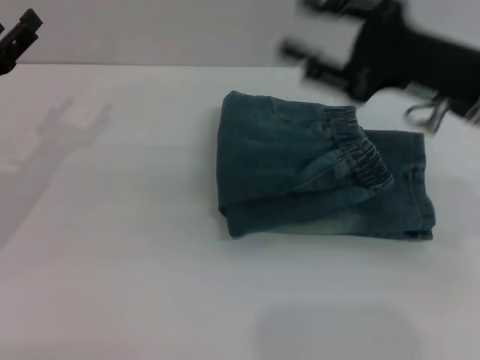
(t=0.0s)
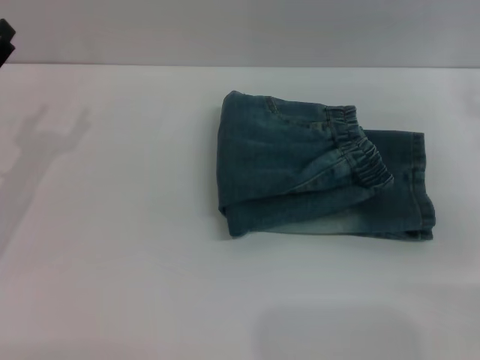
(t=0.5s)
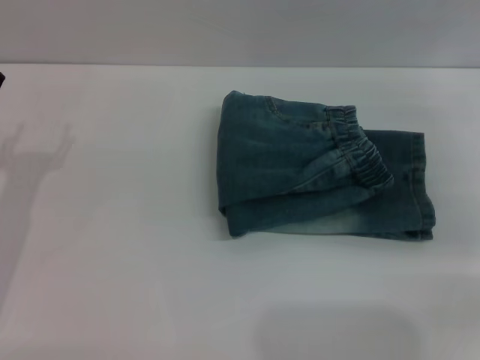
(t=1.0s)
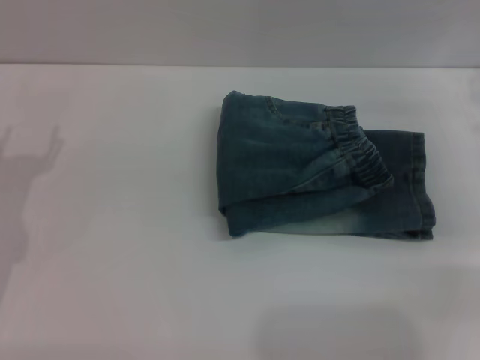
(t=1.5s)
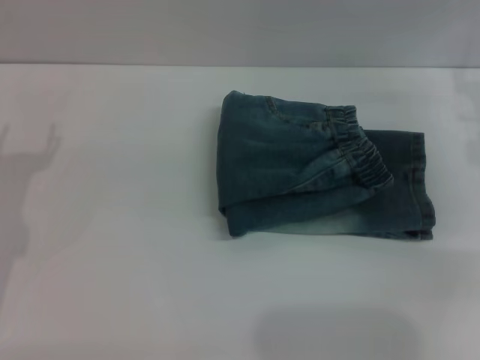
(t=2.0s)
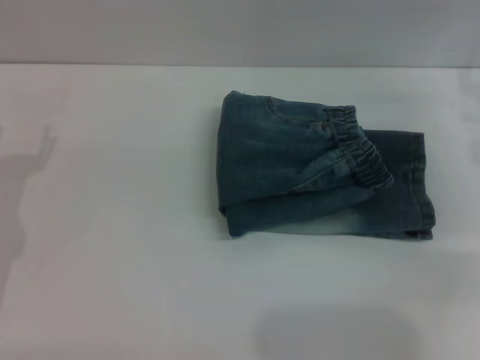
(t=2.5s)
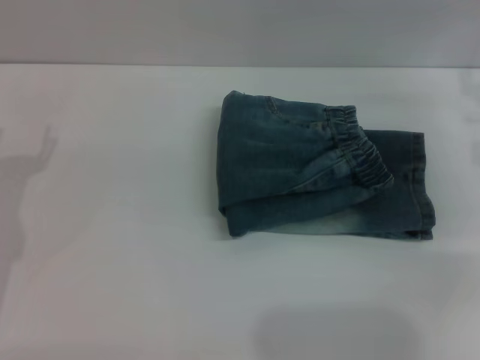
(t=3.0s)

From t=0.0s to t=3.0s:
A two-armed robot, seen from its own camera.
From t=0.0s to t=1.5s: The left gripper travels downward by some 5 cm, while the right gripper is displaced to the right, downward and forward by approximately 15 cm.
